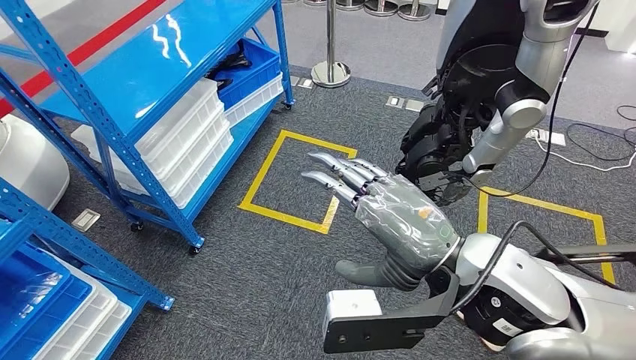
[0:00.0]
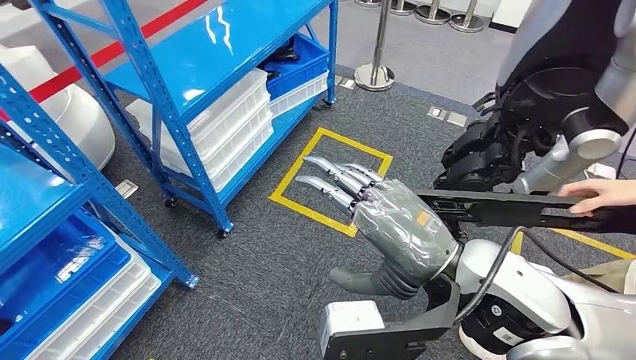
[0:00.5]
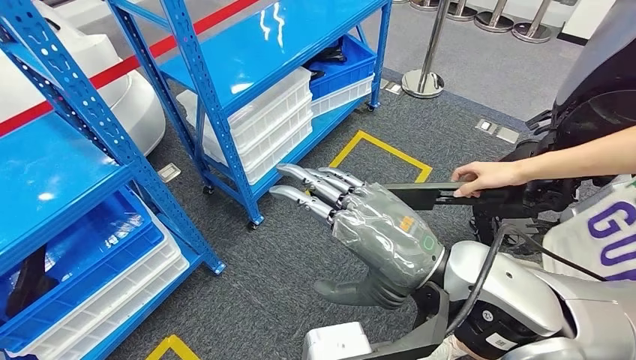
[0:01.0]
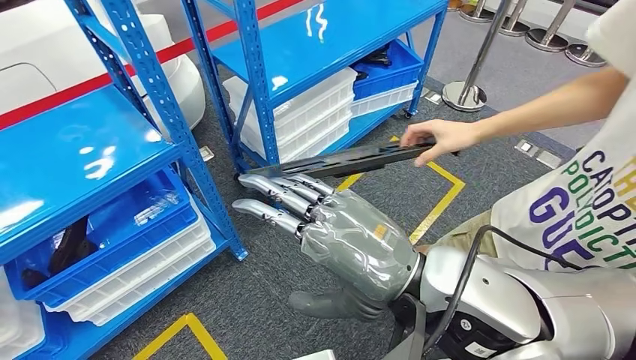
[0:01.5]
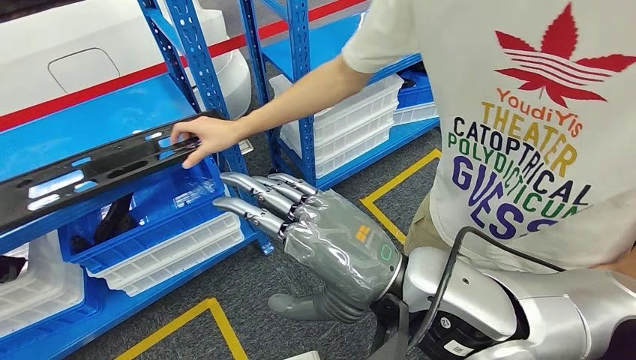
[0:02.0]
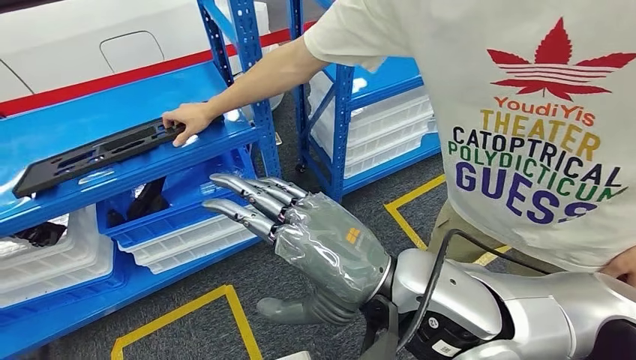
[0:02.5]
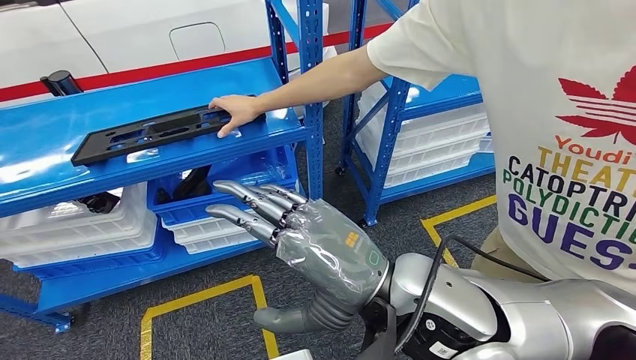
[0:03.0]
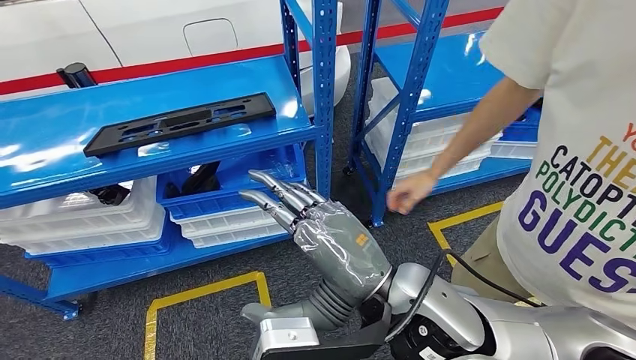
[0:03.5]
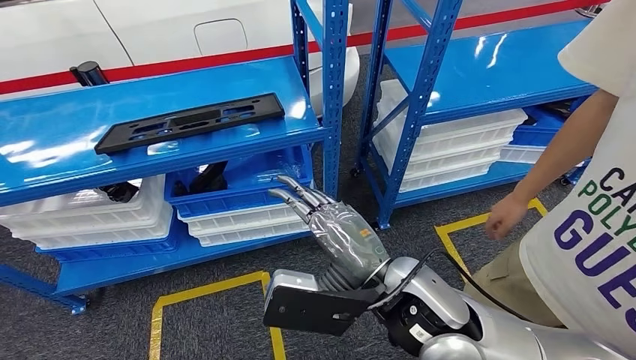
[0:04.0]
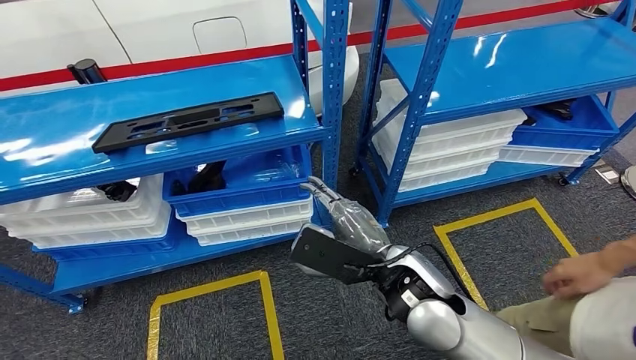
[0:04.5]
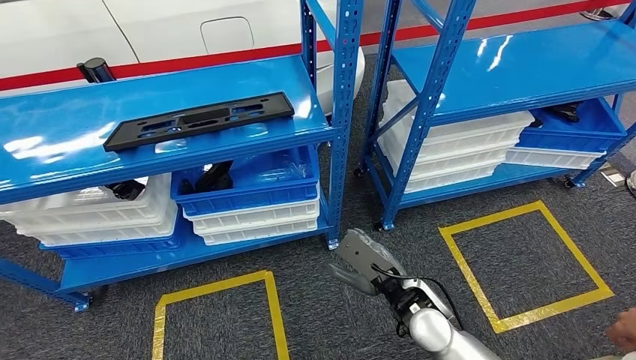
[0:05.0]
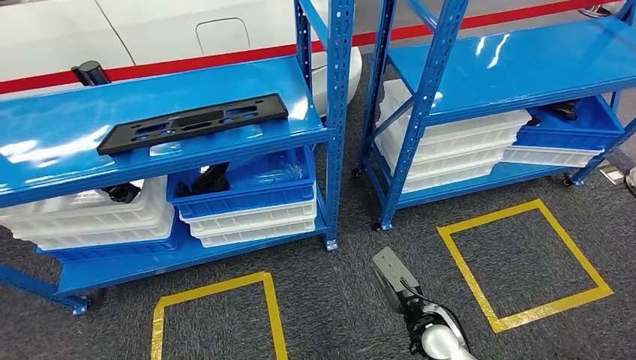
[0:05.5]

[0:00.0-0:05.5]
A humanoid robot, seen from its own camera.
Step, 0:00.0 to 0:05.5: Move to the initial position of the shelf.
